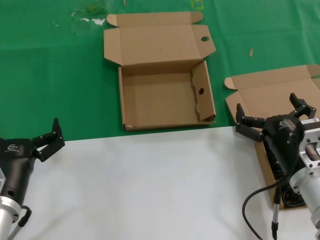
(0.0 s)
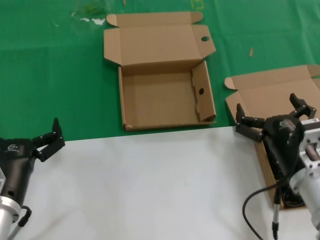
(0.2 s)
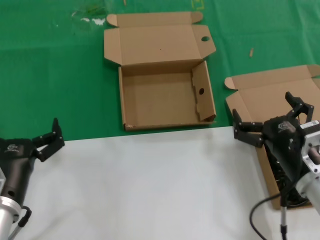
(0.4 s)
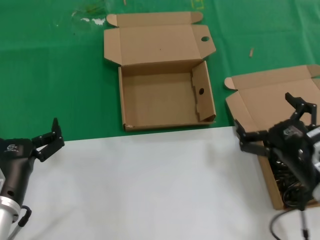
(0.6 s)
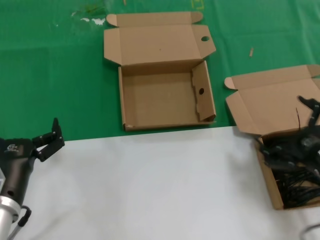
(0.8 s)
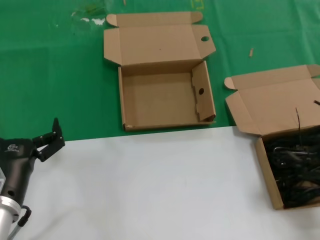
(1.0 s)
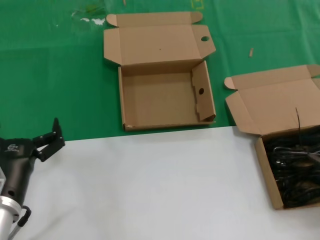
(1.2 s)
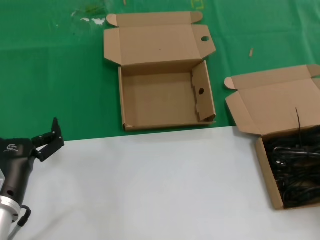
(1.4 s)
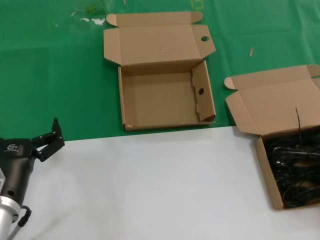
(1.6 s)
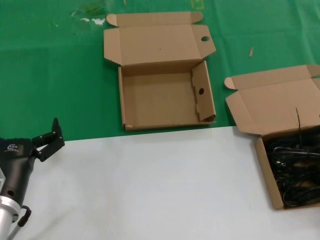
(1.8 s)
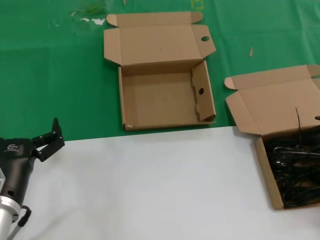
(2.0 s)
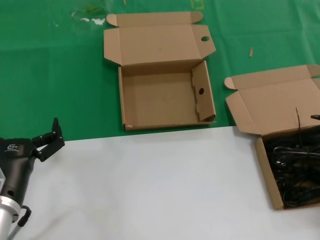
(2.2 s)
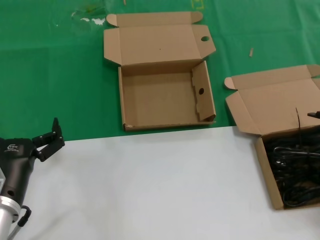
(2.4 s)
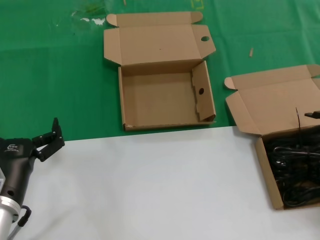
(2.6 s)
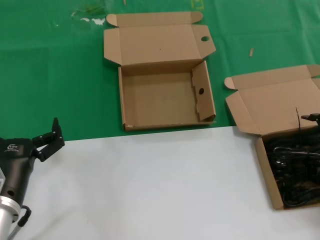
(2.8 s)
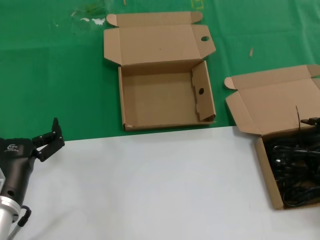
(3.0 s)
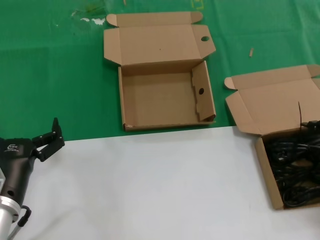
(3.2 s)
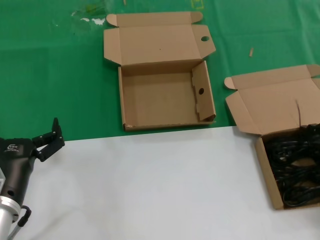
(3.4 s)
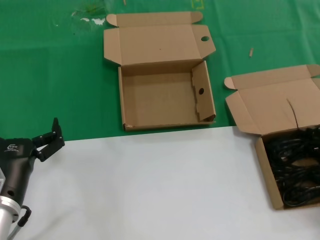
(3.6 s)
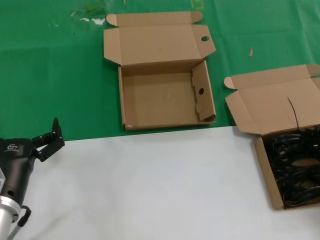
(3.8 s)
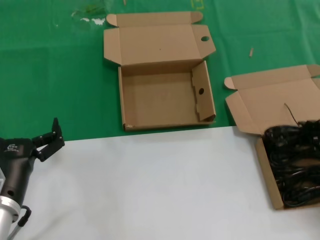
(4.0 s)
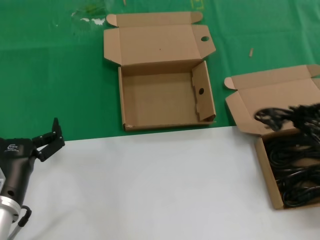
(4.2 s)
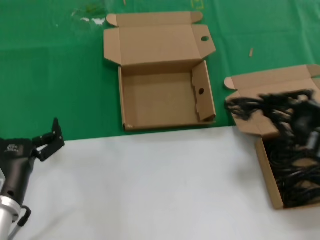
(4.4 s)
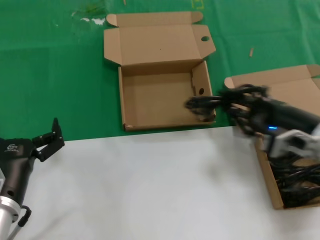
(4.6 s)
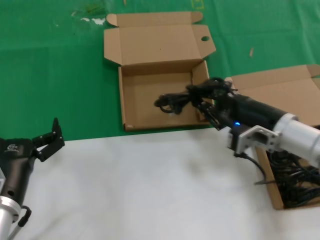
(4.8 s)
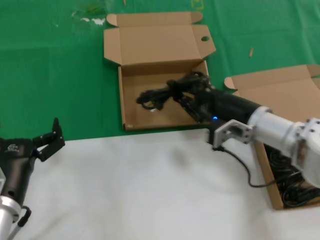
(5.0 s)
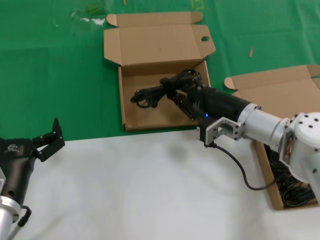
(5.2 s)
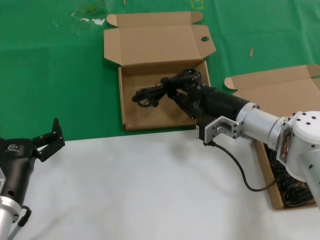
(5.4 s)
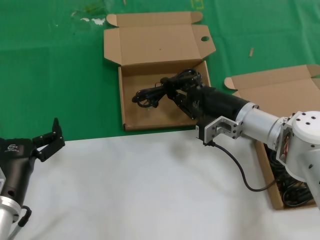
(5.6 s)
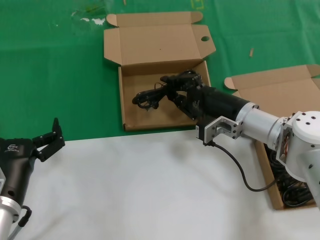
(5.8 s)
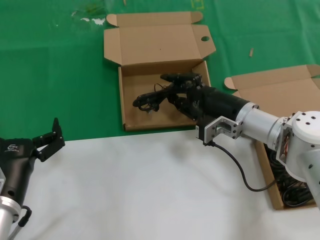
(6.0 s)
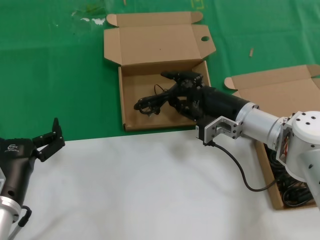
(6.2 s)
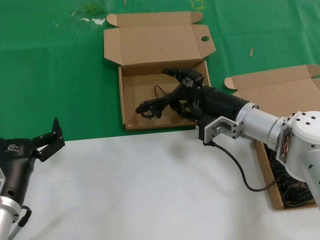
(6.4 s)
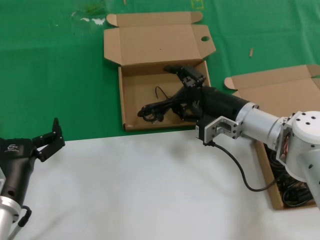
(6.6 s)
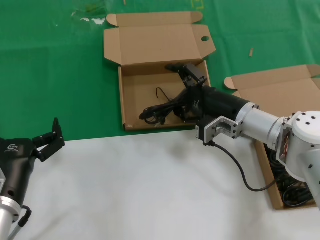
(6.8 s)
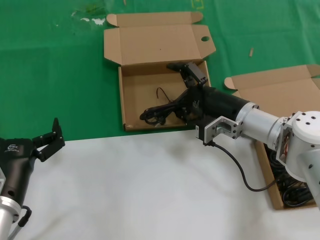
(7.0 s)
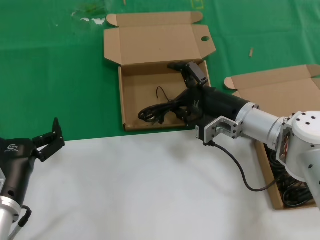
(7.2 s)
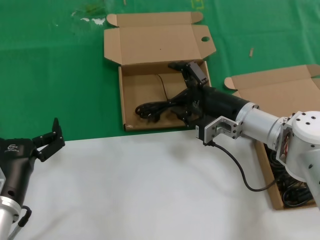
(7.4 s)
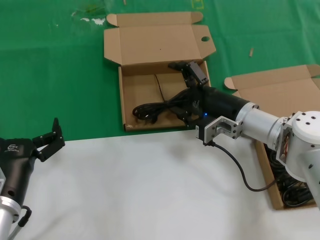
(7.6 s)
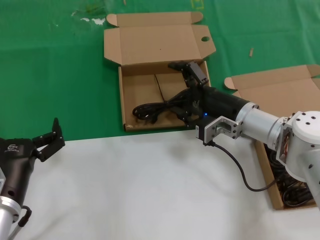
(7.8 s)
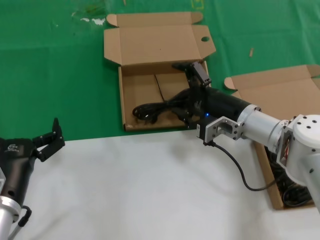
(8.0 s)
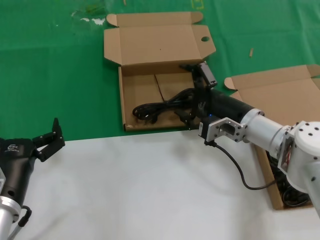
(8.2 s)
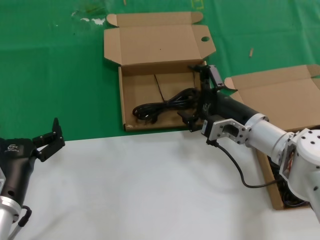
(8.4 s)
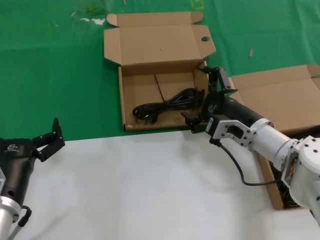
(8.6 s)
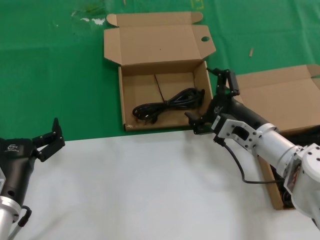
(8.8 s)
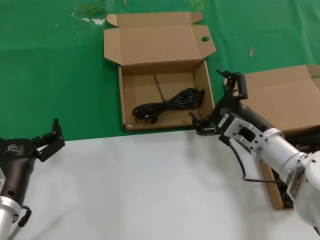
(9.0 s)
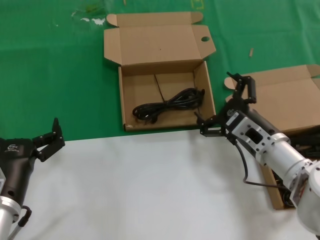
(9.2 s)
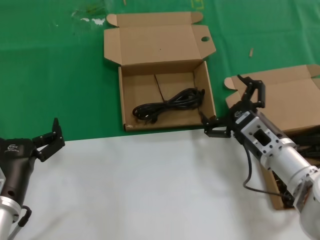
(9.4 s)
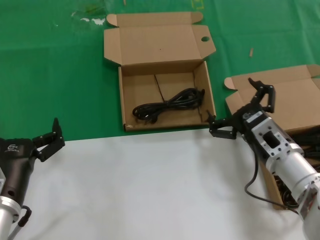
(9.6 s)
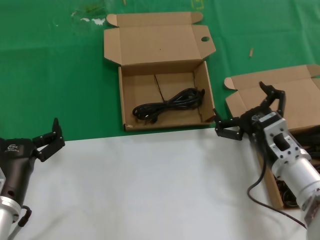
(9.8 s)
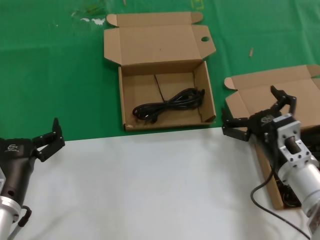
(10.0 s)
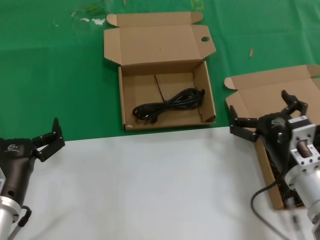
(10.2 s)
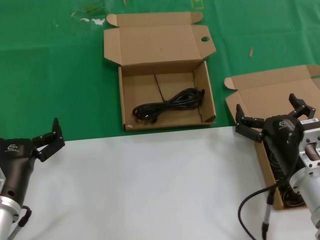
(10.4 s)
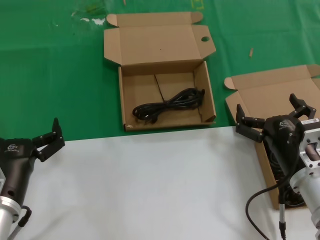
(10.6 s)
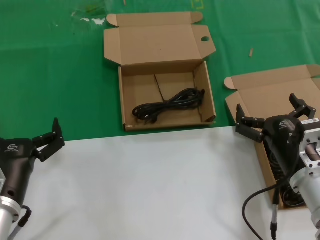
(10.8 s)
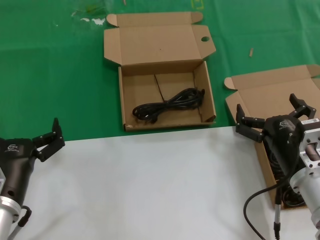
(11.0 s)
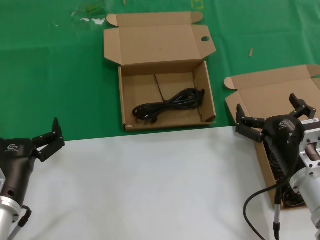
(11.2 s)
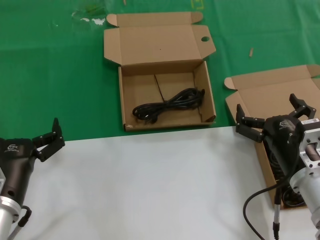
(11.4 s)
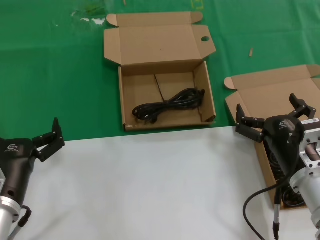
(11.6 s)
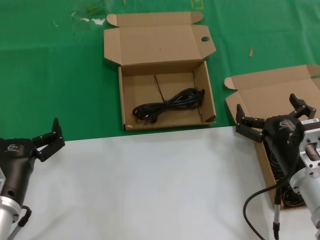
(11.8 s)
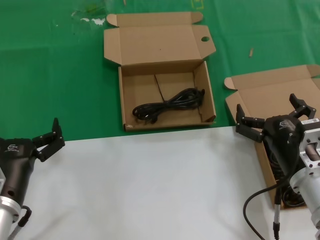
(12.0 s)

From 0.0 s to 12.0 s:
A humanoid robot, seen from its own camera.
Task of the whole recording: take the parts from the box containing them and put them into an empty box.
Step, from 0.0 s to 3.4 s: Grasp the data cable.
Step, from 3.6 s to 7.8 s: Place the data cable in the another box.
From 0.0 s to 1.6 s: The right hand travels to the right by approximately 20 cm.
From 3.0 s to 4.4 s: The right hand goes roughly 5 cm to the left.
From 4.4 s to 6.0 s: The right hand travels to the left, forward and downward by about 25 cm.
From 6.0 s to 7.6 s: Both hands stay about where they are.
From 7.6 s to 9.0 s: The right hand travels backward by about 5 cm.
From 9.0 s to 10.4 s: The right hand shifts some 10 cm backward.
From 10.4 s to 12.0 s: Both hands stay about where they are.

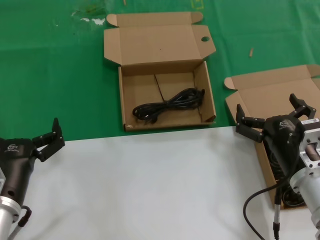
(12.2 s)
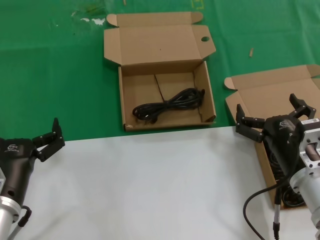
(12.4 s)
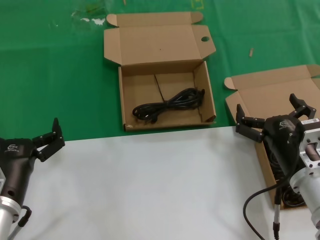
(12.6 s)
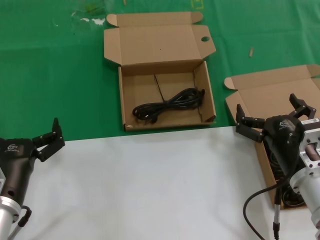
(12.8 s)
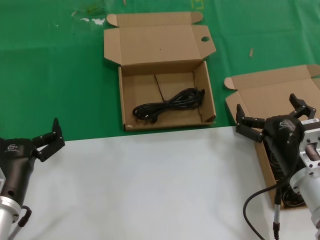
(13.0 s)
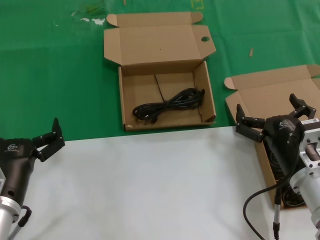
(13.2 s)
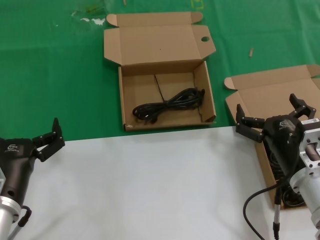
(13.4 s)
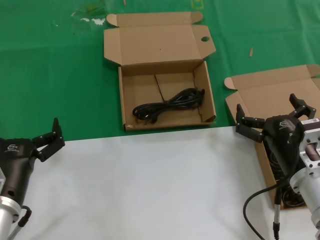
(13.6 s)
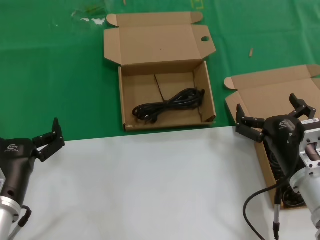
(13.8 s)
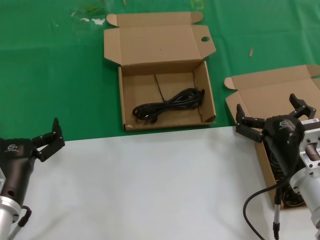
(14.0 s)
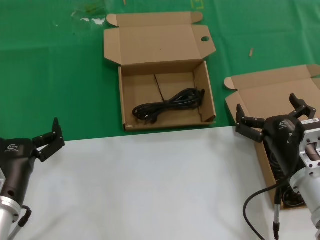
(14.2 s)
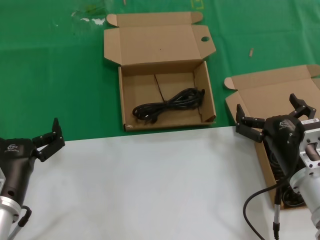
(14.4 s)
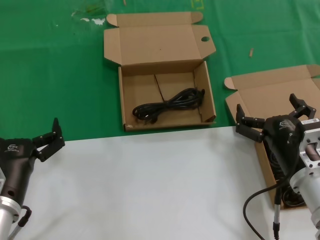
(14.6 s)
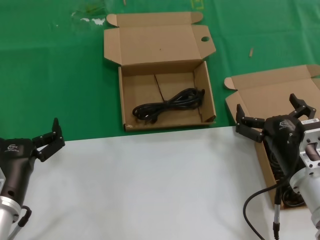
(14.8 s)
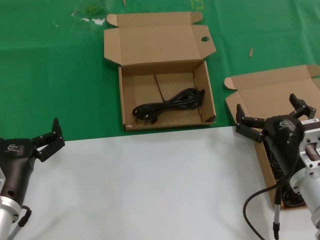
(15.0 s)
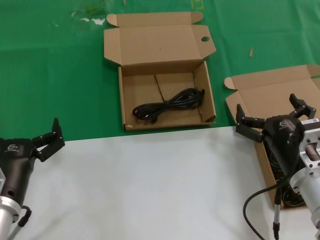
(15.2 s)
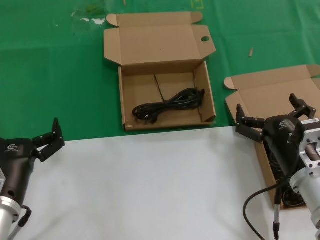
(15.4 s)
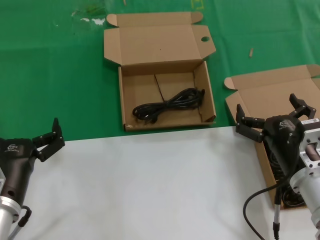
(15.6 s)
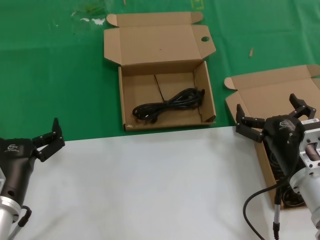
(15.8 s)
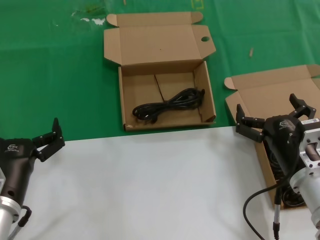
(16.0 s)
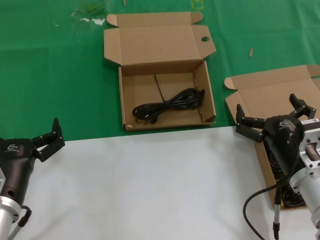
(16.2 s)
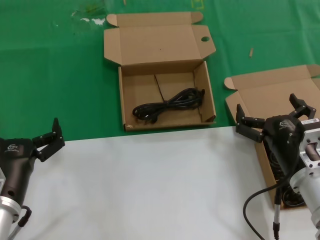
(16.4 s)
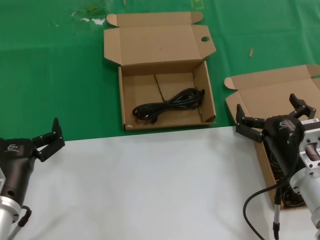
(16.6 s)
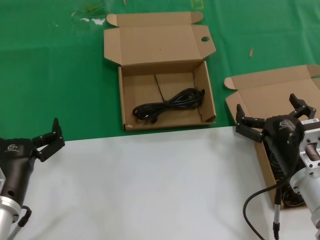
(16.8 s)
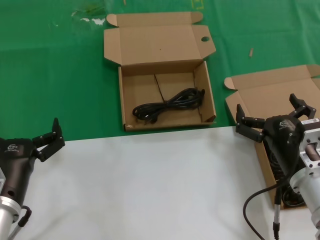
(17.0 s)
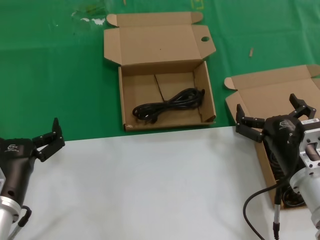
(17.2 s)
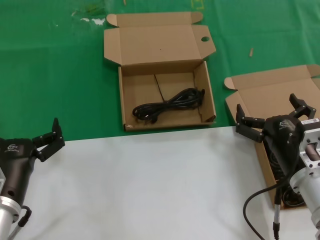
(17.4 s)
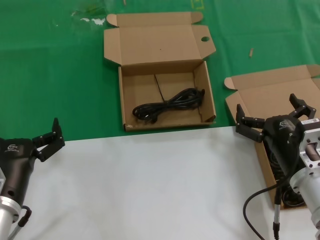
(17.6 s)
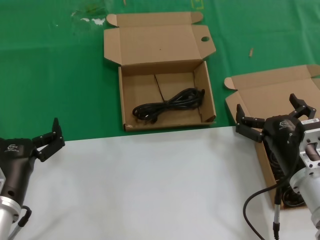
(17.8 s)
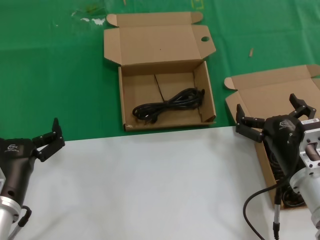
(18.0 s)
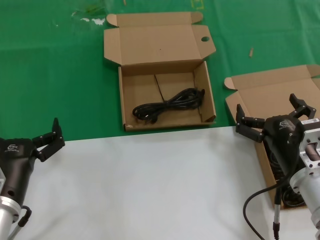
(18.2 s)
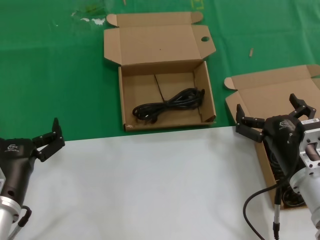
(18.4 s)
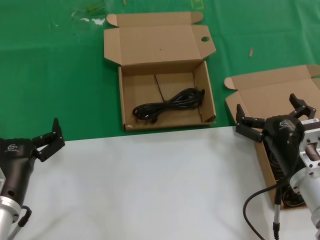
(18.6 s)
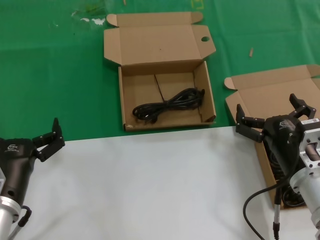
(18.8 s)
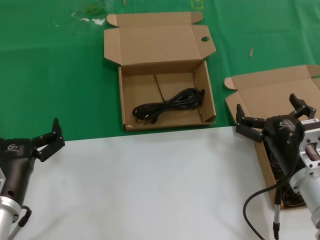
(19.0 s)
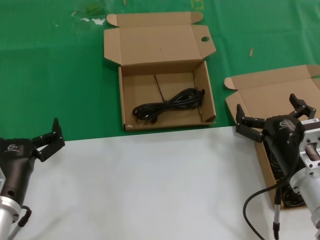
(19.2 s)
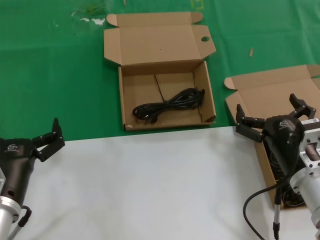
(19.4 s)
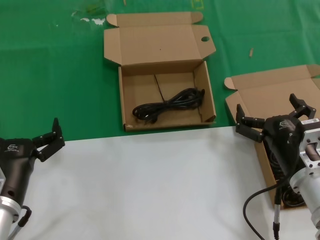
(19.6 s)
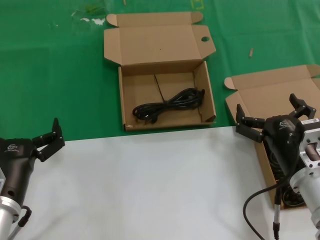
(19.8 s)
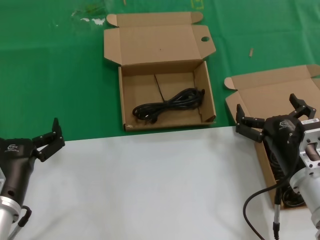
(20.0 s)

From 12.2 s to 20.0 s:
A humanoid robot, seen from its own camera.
Task of the whole recording: take the parts from the box containing them and put them into an empty box.
From 12.2 s to 20.0 s: Both hands stay about where they are.
